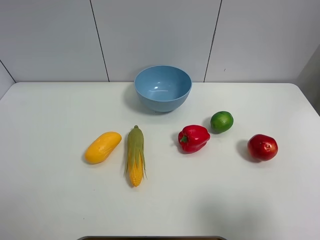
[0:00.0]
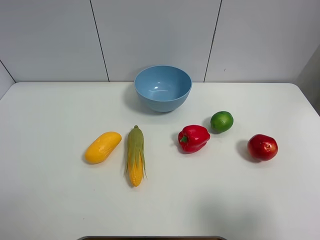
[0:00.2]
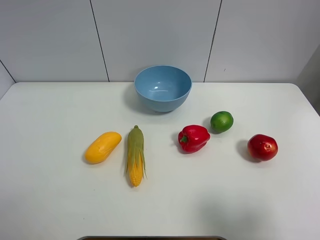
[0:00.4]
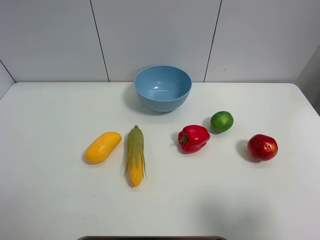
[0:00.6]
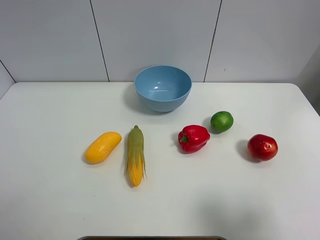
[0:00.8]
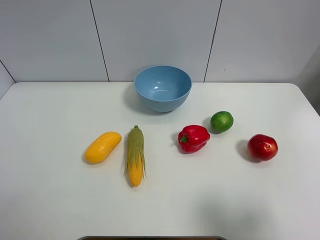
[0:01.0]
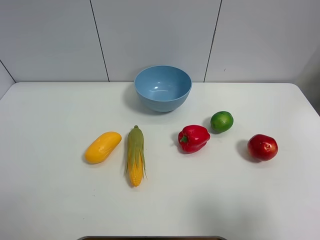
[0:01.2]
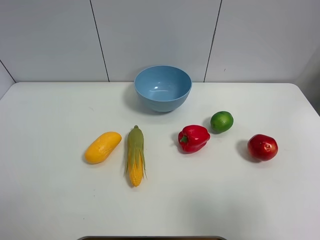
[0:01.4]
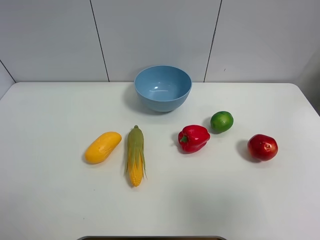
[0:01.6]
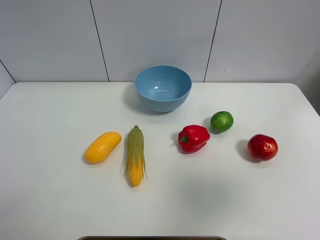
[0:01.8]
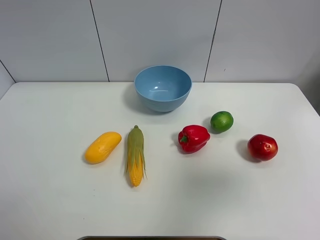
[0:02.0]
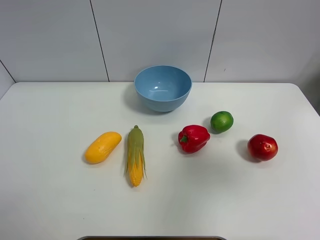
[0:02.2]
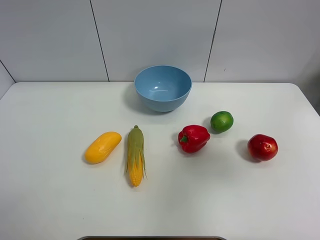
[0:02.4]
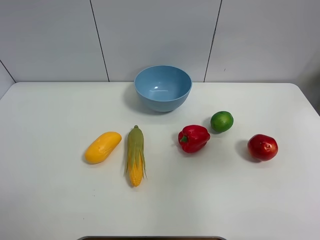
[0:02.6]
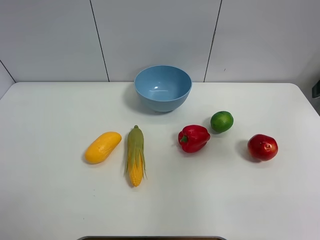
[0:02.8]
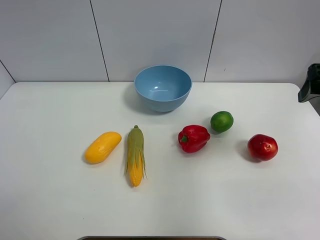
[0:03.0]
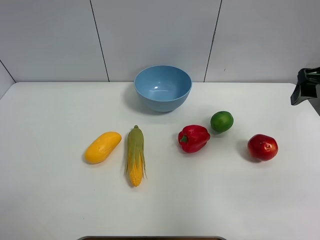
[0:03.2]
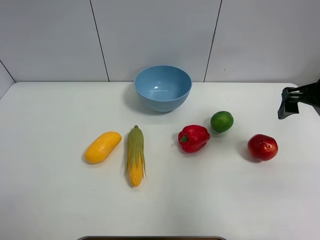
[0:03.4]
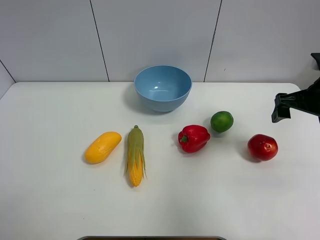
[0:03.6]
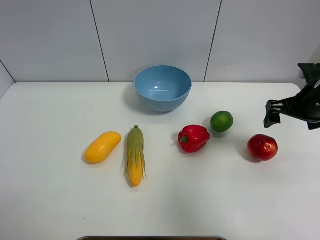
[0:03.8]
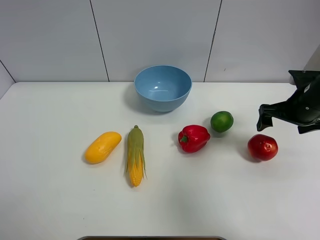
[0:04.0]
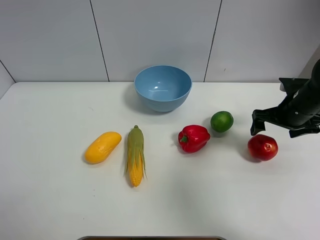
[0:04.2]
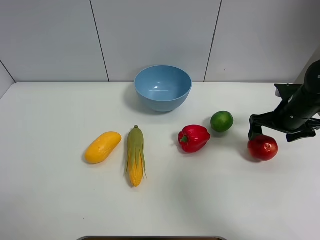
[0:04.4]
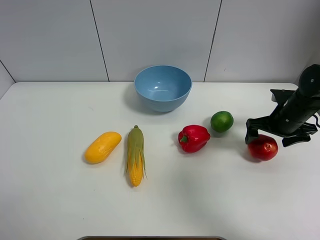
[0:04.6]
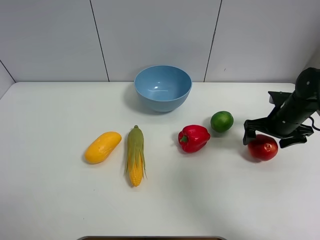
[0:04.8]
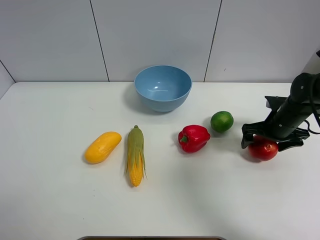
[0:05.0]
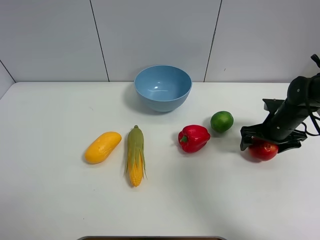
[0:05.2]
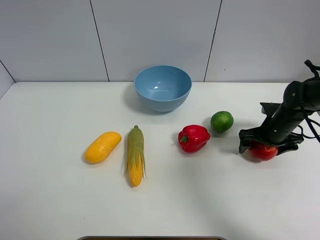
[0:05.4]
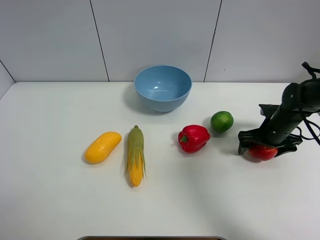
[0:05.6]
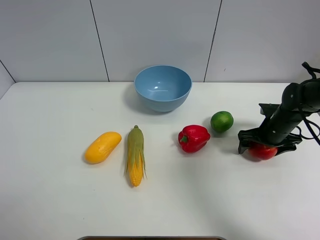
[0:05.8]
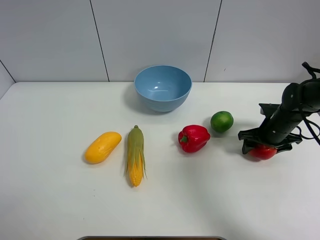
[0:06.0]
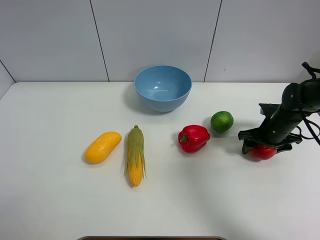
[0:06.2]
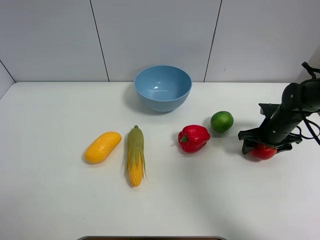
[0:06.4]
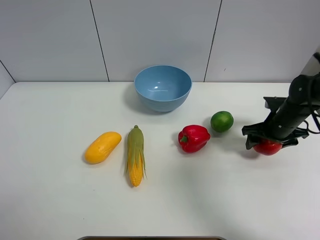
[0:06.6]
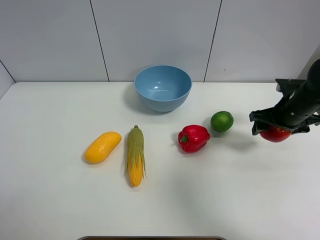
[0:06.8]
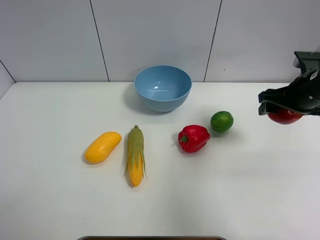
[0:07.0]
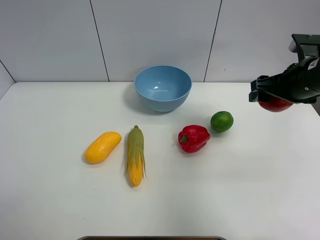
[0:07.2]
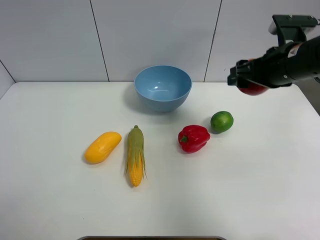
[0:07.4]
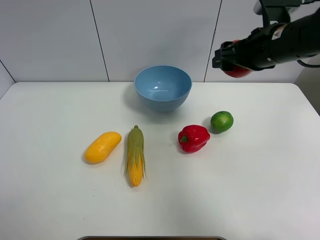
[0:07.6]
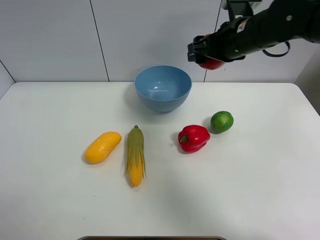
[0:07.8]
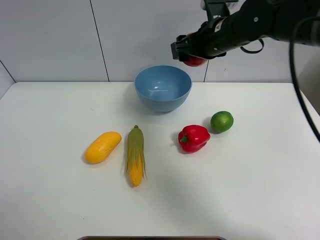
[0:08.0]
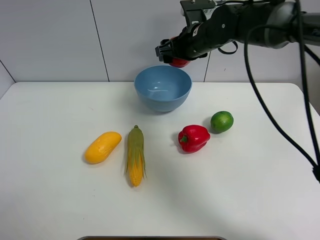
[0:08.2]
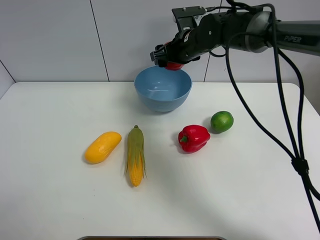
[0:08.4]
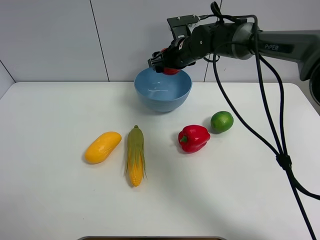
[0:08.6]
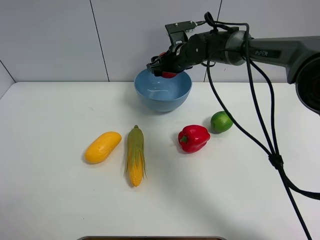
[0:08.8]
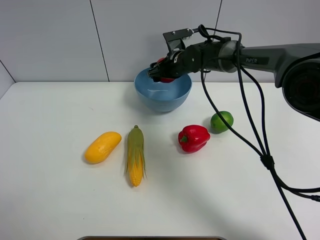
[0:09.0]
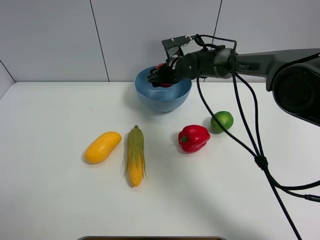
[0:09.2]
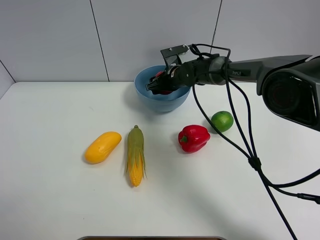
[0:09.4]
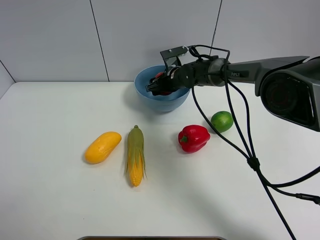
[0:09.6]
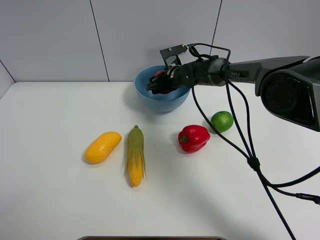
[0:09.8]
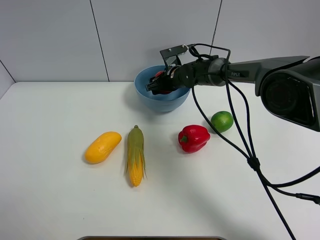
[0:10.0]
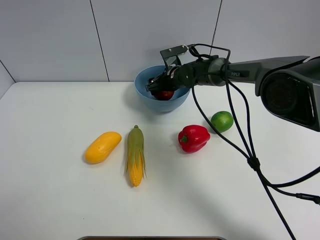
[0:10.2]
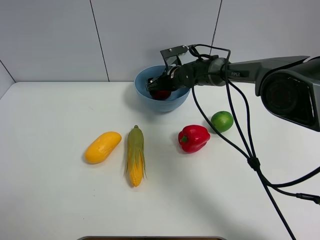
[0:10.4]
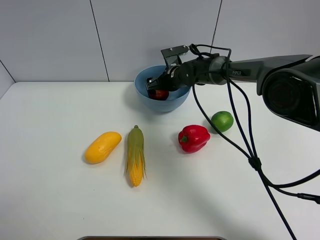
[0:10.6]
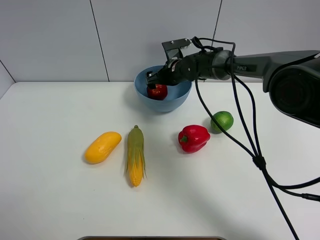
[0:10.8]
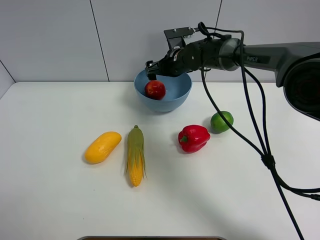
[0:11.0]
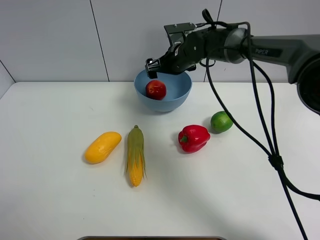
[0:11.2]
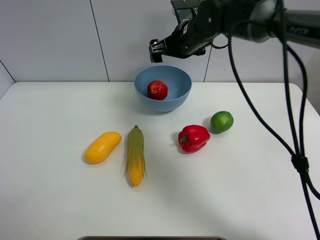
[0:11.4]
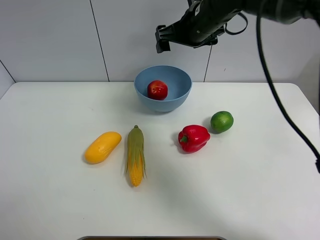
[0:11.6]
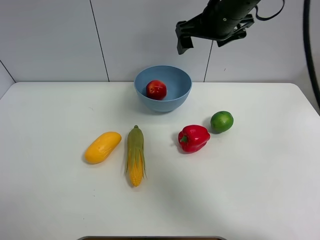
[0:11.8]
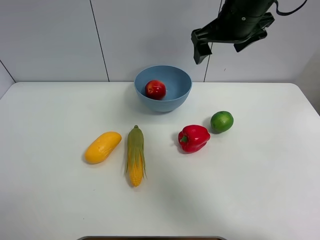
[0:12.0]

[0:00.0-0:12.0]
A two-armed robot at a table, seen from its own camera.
Task of the whole recording: Put the three fruits on the table into a bowl.
Step, 0:00.0 to 0:06.0: Grasp the pomegranate with right gripper.
Step, 0:06.2 to 0:10.8: Place the pomegranate in the blue bowl with right gripper.
0:00.0 to 0:01.6: The right gripper travels upward by about 10 cm.
0:01.6 to 0:03.0: The right gripper shifts about 25 cm forward.
0:03.0 to 0:04.4: The right gripper is displaced downward and forward by some 20 cm.
0:04.4 to 0:06.0: The right gripper shifts some 5 cm downward.
0:06.0 to 0:07.6: The right gripper travels upward and to the left by roughly 25 cm.
0:07.6 to 0:09.0: The right gripper heads forward, downward and to the left, covering approximately 25 cm.
0:09.0 to 0:10.4: The grippers stay close to where they were, moving slightly.
0:10.4 to 0:12.0: The right gripper moves upward and backward, approximately 25 cm.

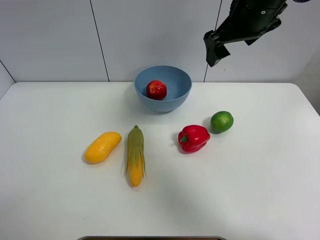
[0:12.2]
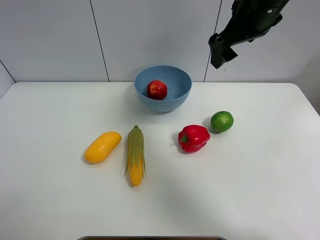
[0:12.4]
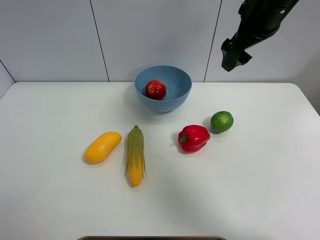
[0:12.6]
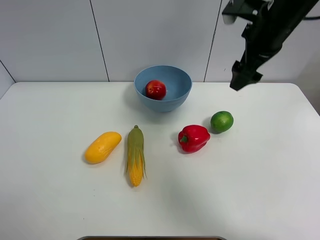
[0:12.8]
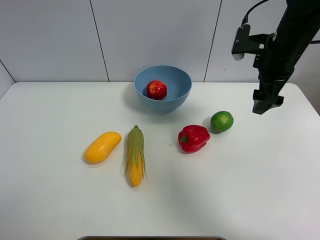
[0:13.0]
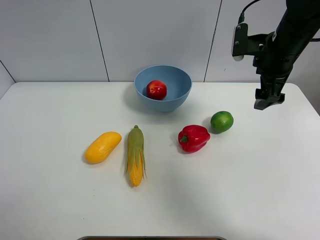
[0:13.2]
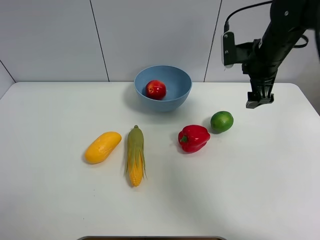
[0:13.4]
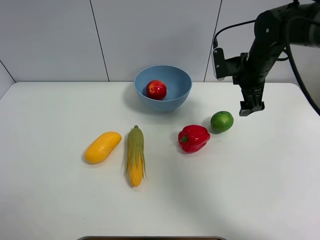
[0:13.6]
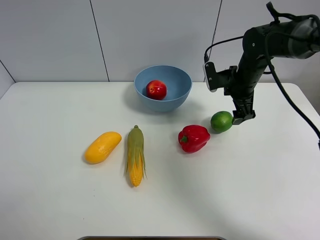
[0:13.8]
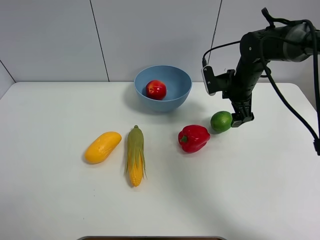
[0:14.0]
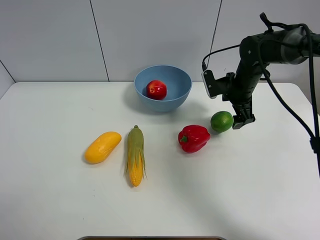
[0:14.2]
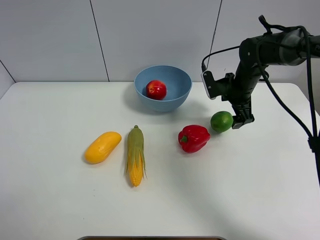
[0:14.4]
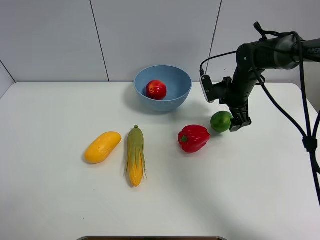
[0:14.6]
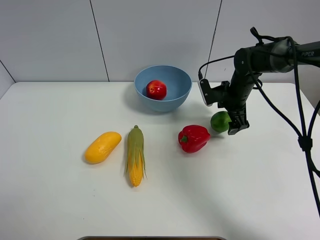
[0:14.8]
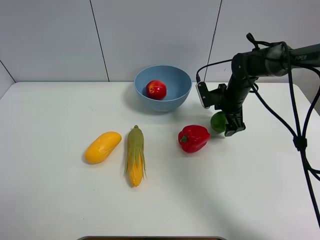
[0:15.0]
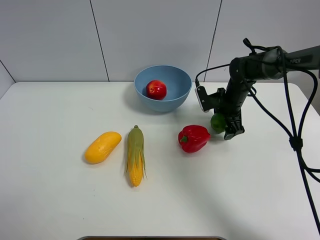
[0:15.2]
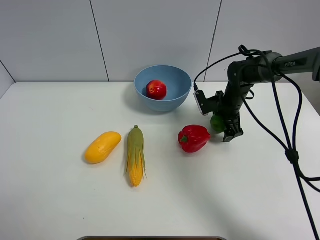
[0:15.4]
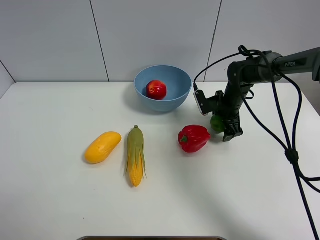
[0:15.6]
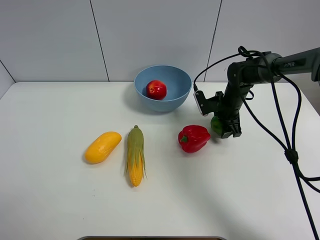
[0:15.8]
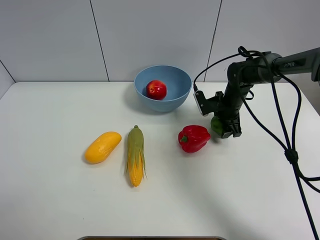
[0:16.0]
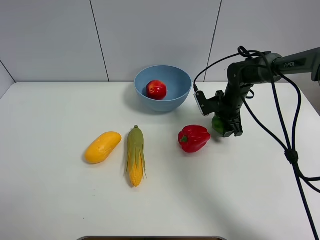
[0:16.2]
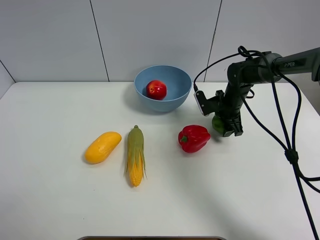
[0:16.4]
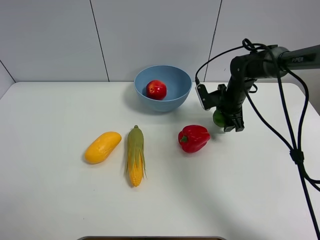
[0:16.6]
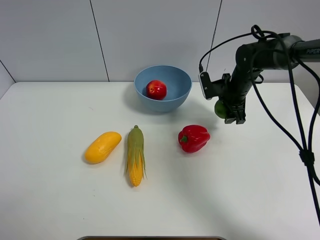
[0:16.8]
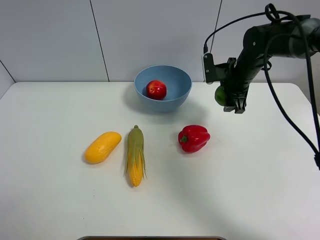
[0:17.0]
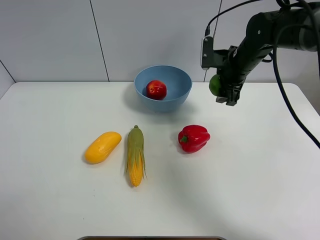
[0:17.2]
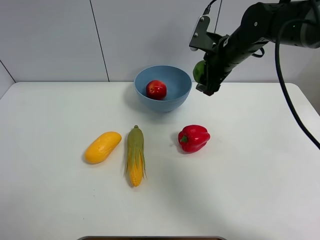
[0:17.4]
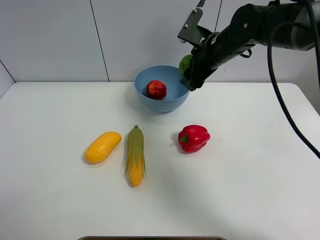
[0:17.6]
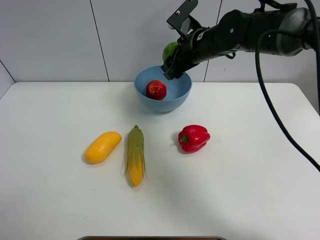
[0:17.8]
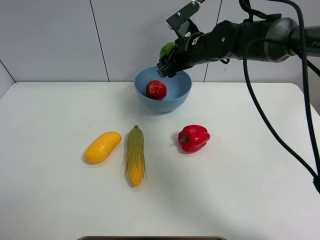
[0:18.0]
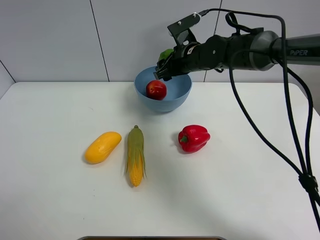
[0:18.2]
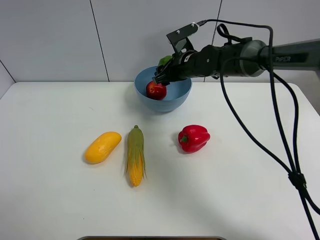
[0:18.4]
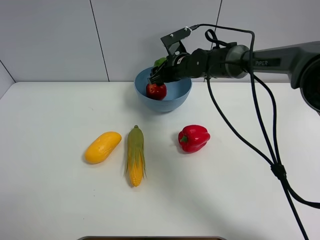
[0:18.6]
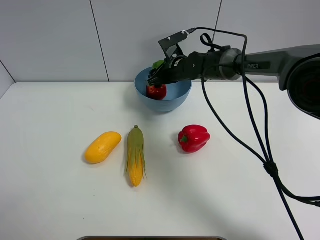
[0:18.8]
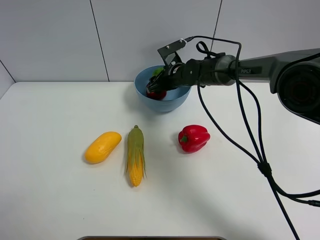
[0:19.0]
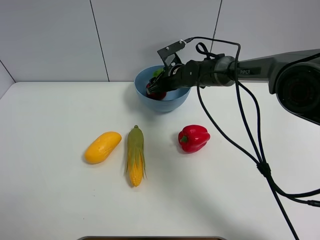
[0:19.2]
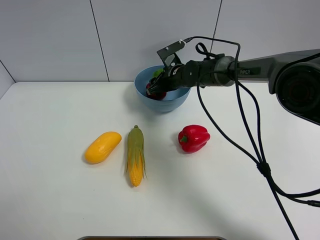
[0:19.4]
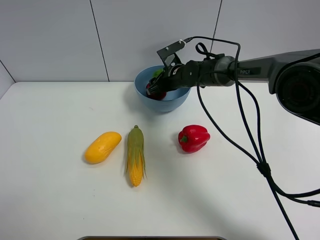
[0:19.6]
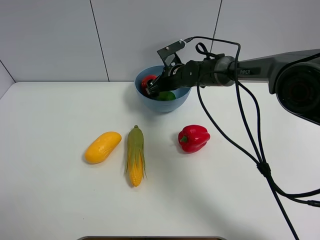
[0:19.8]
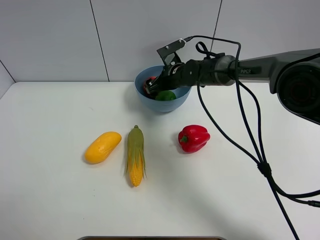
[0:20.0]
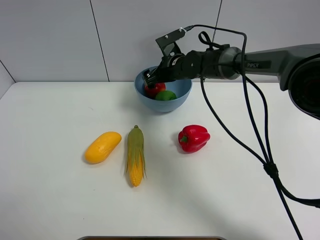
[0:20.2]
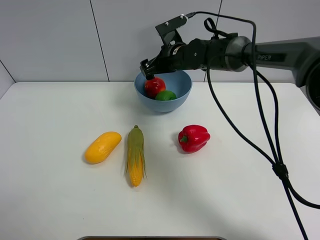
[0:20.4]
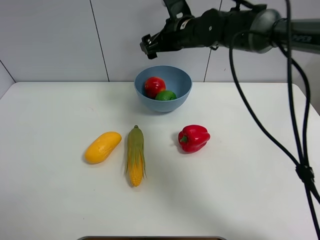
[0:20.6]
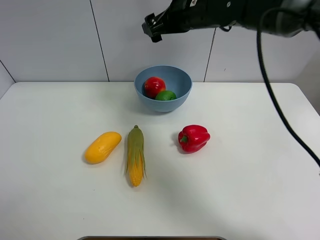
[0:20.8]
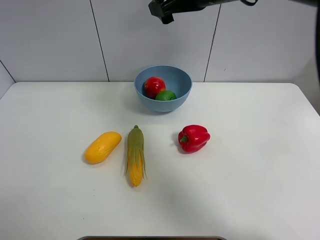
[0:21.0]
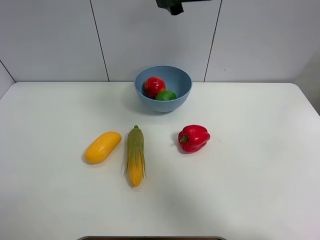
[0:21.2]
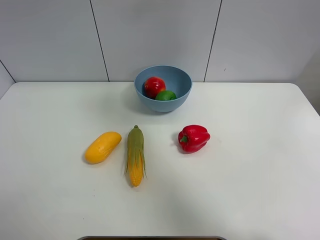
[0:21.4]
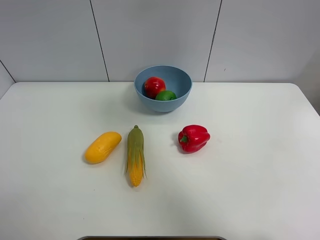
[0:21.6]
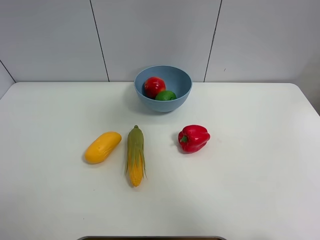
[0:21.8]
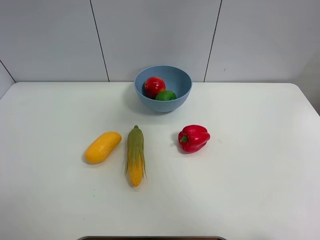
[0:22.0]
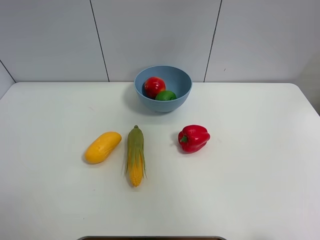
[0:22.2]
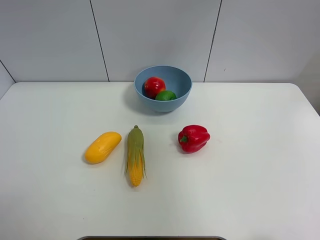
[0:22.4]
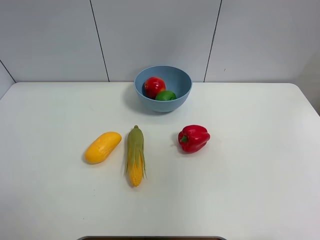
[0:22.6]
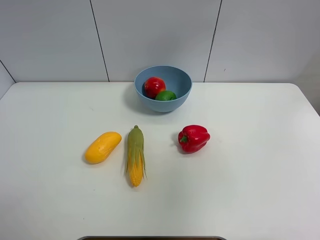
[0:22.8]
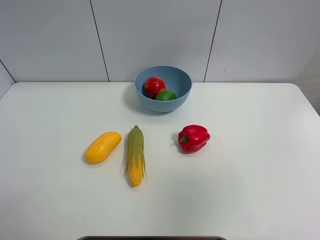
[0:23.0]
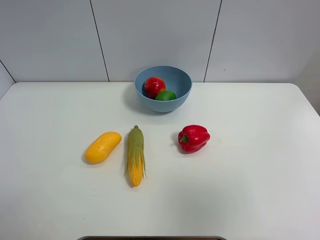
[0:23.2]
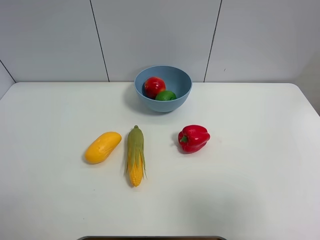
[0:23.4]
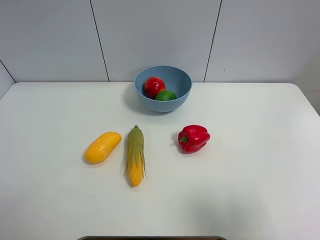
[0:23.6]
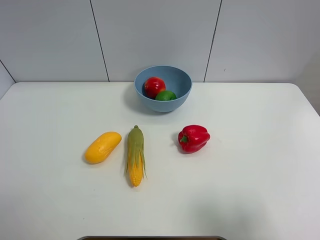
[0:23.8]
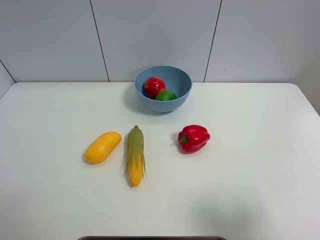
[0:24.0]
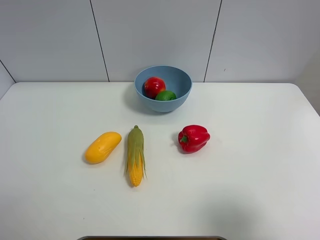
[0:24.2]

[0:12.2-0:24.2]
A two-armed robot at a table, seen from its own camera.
Task of the whole recording: Put the three fruits on the table into a bowl.
Step, 0:12.2 to 0:15.8: Grasp the green lemon with right gripper.
Step, 0:16.0 to 0:19.8: Place the green lemon in the blue bowl with right gripper.
0:12.2 to 0:13.8: The right gripper heads downward, covering approximately 20 cm.
0:13.8 to 0:15.2: The right gripper moves downward, about 10 cm.
0:15.2 to 0:16.6: The grippers move only a little.
0:16.6 to 0:18.2: The right gripper goes approximately 15 cm to the left and upward.
0:18.2 to 0:19.8: The right gripper shifts some 10 cm downward.
0:19.8 to 0:21.2: The right gripper shifts some 30 cm upward and backward.
0:21.2 to 0:22.6: The right gripper shifts approximately 35 cm backward and to the right.
0:22.6 to 0:24.2: The right gripper travels downward by approximately 25 cm, and closes up.
